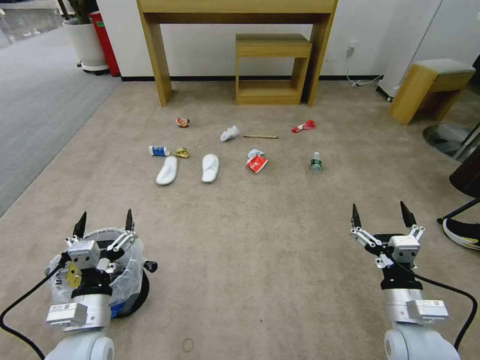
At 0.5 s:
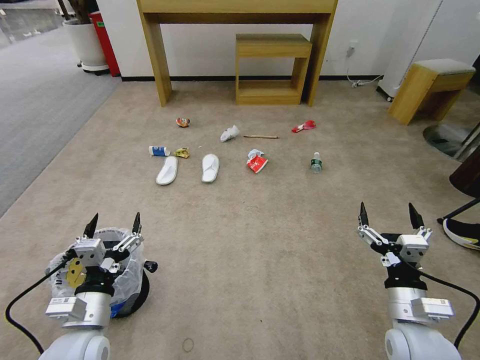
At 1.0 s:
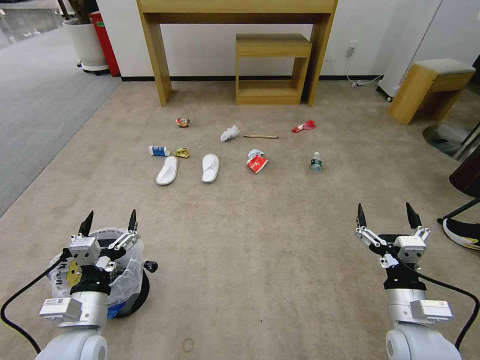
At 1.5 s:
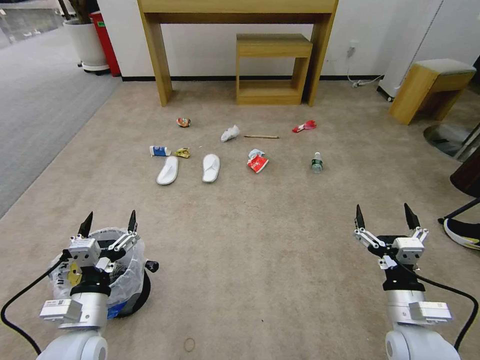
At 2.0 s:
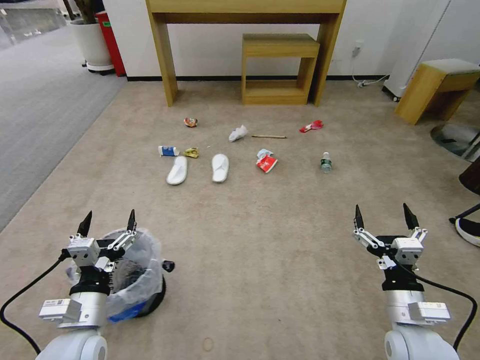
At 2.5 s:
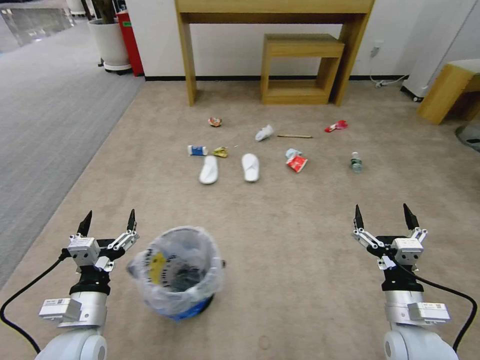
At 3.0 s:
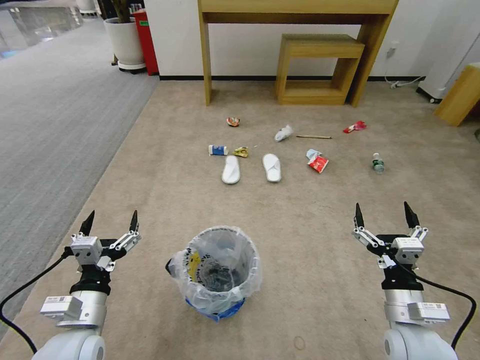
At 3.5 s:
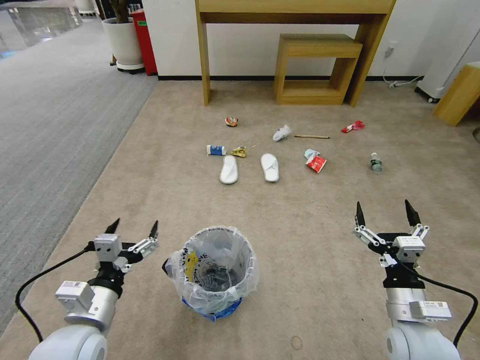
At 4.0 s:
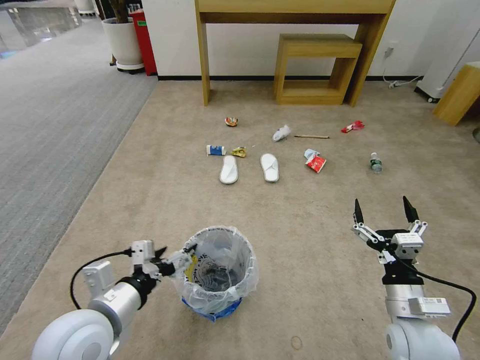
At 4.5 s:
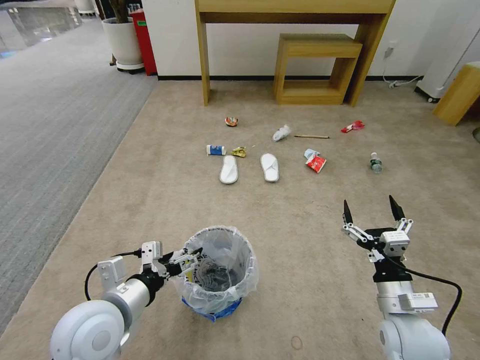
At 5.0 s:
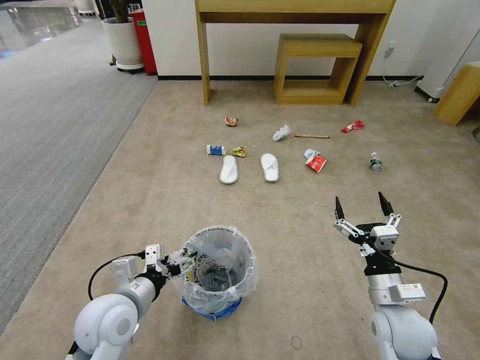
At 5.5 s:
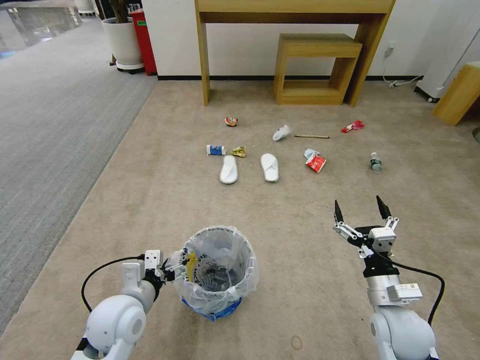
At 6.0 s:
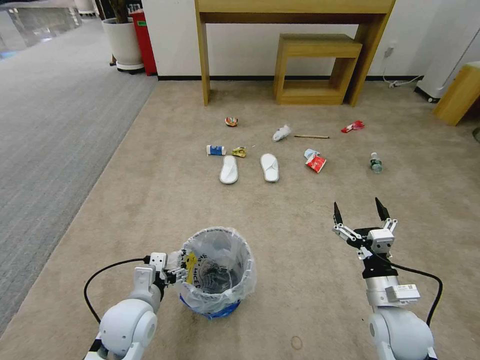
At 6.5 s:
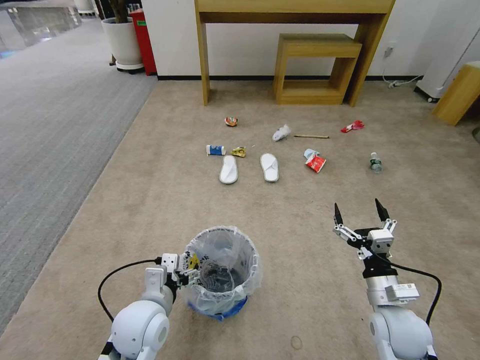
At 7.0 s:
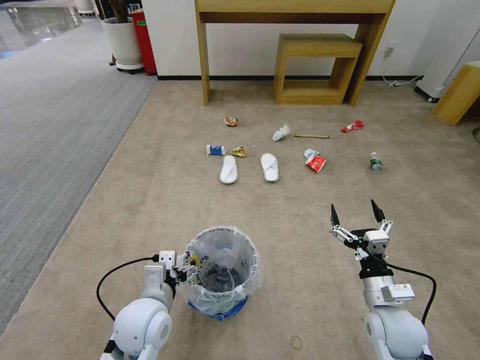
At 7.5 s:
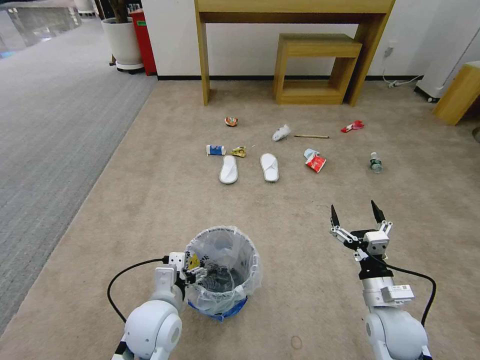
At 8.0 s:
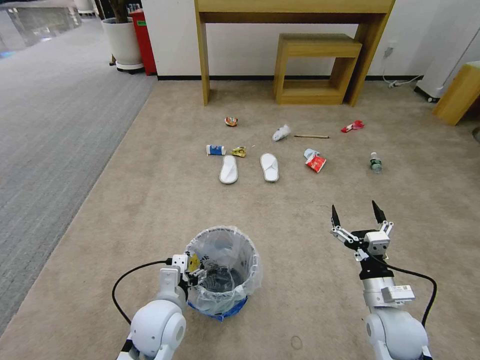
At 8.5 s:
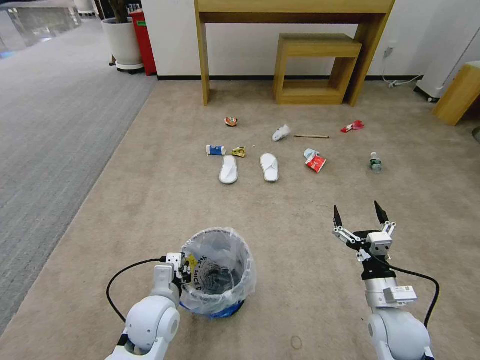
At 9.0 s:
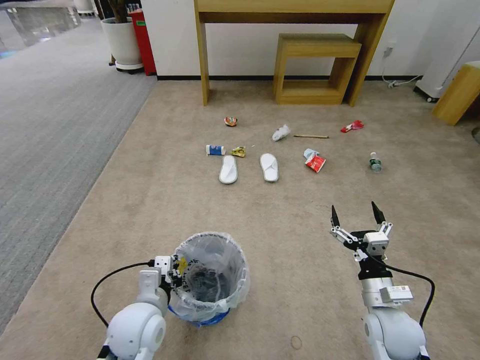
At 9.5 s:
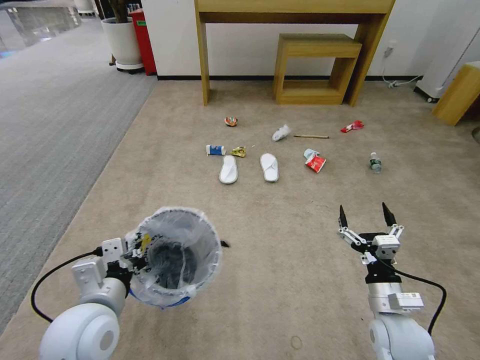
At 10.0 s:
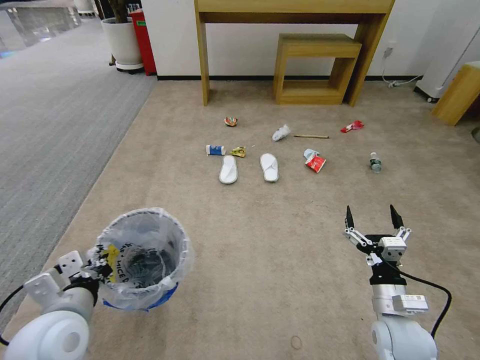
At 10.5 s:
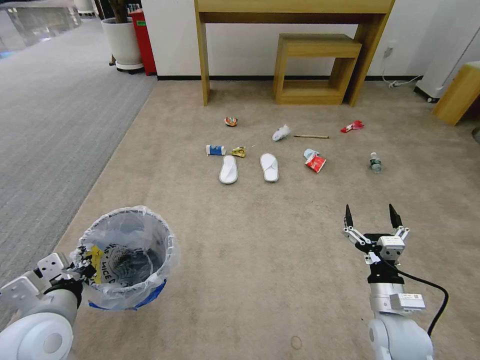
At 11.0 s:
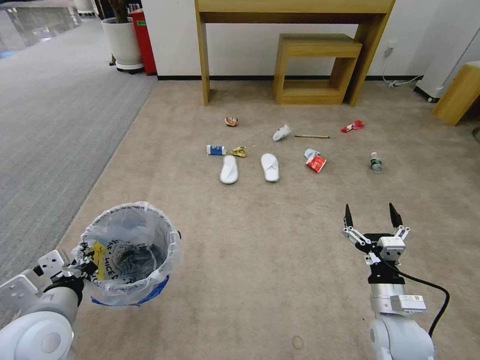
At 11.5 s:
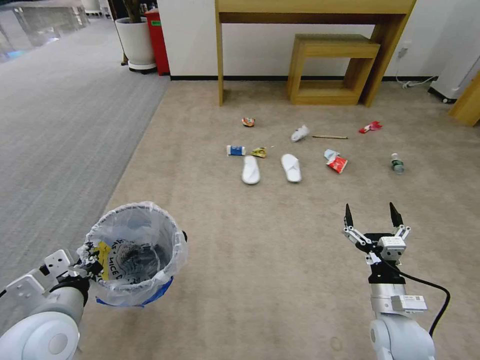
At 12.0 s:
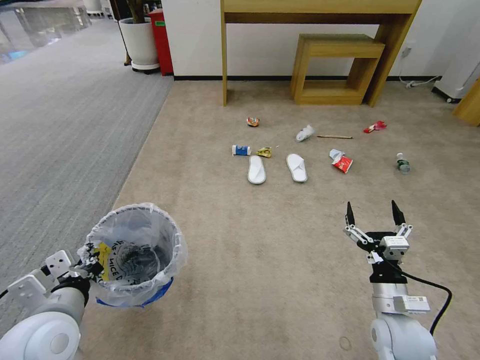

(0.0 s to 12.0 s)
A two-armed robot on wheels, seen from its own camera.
Task of the whole recording: Pick up the trash bin and place the garbage on the floor into it.
2.0 s - 4.0 s: The left gripper travels upward by some 5 cm.
4.0 s - 6.0 s: The left gripper travels downward and forward by approximately 10 cm.
6.0 s - 8.0 s: The left gripper is displaced to the right by roughly 5 cm.
8.0 s - 10.0 s: The left gripper heads to the left and upward, covering about 15 cm, and closes up.
10.0 s - 12.0 s: The grippers move only a little.

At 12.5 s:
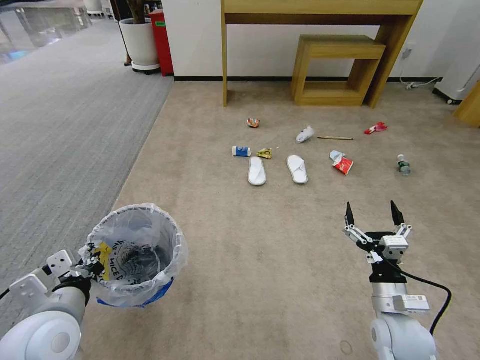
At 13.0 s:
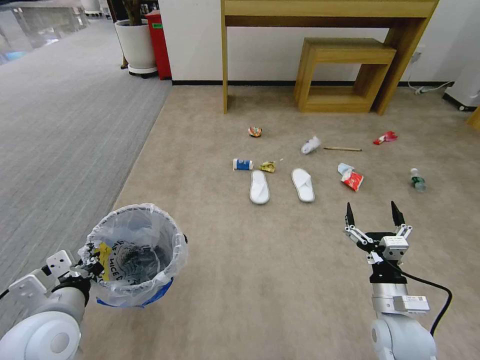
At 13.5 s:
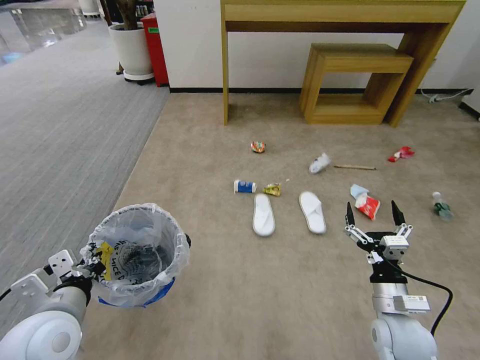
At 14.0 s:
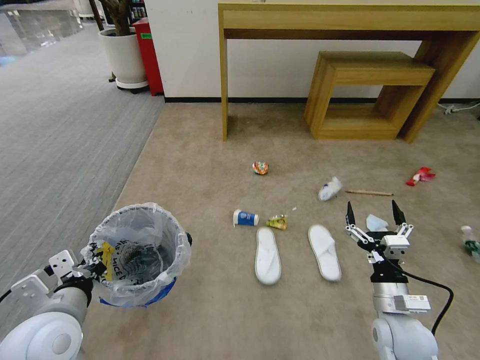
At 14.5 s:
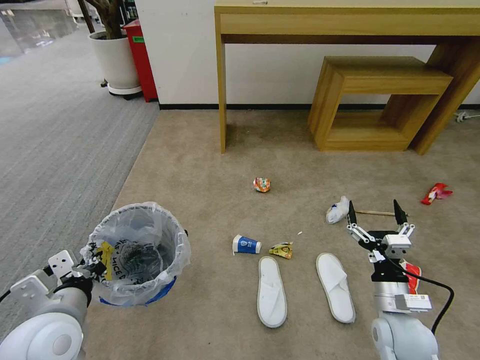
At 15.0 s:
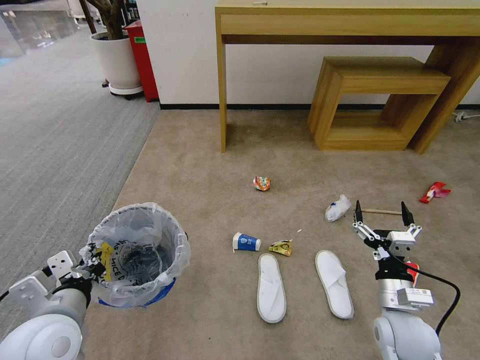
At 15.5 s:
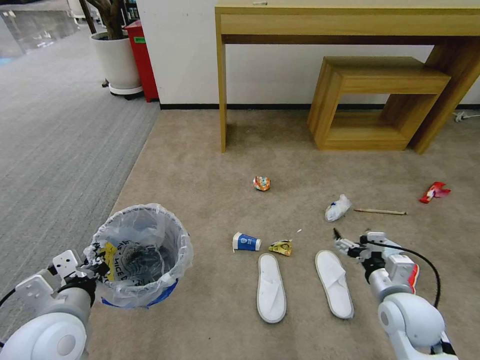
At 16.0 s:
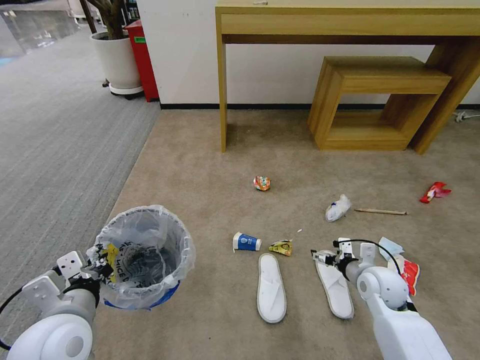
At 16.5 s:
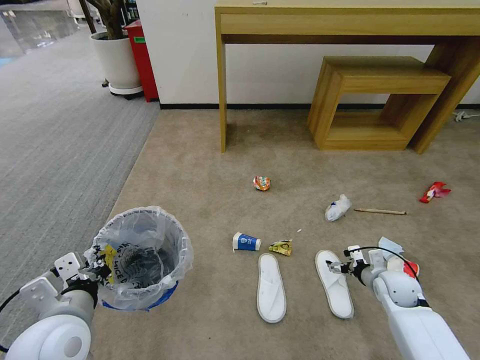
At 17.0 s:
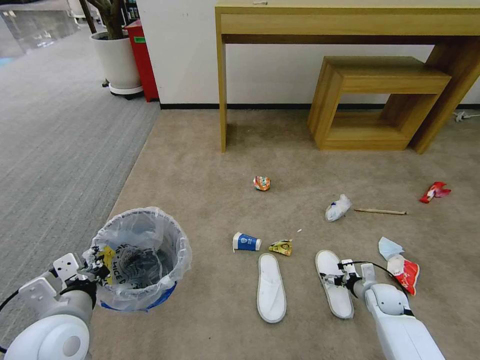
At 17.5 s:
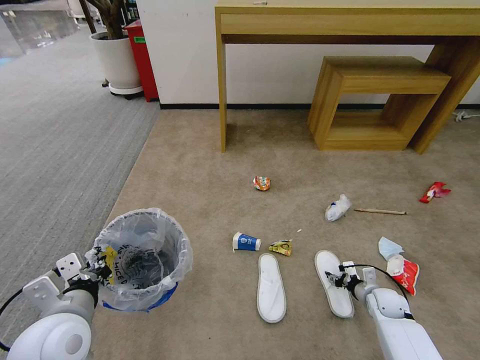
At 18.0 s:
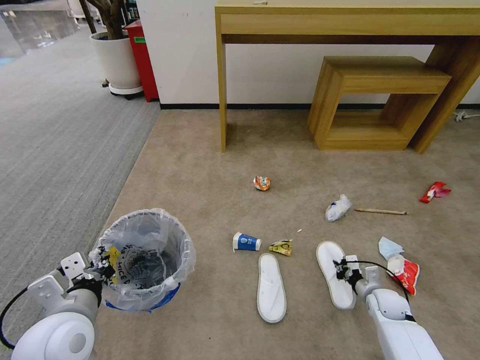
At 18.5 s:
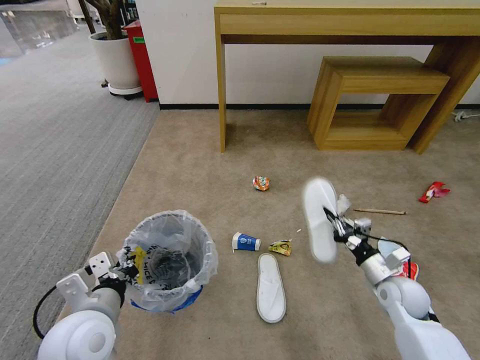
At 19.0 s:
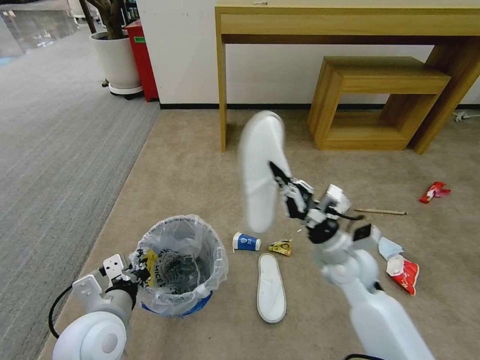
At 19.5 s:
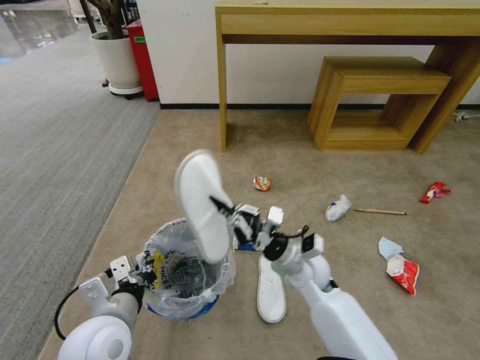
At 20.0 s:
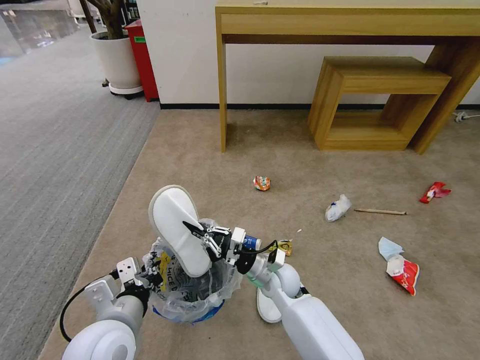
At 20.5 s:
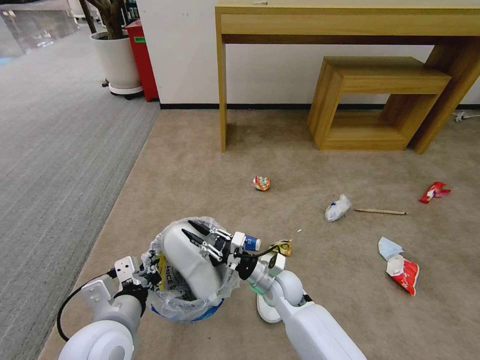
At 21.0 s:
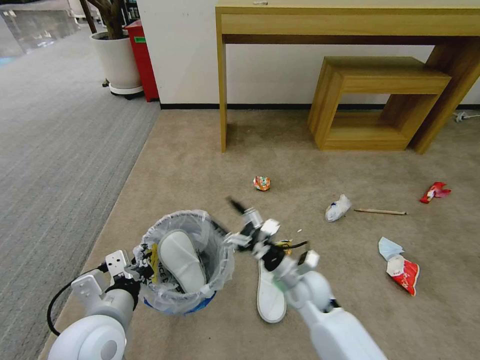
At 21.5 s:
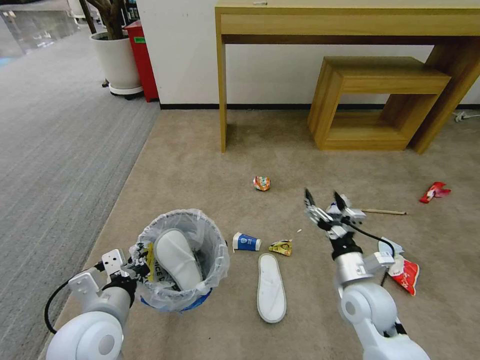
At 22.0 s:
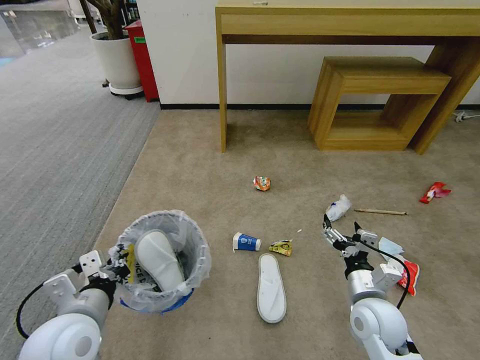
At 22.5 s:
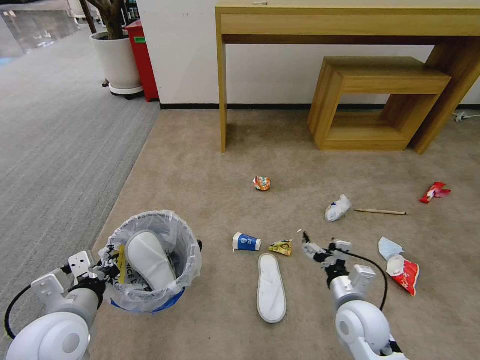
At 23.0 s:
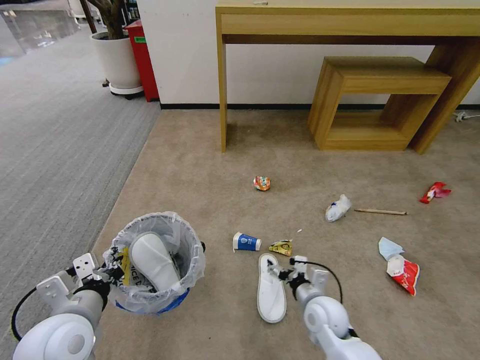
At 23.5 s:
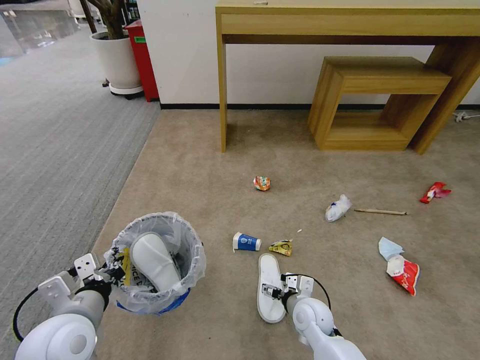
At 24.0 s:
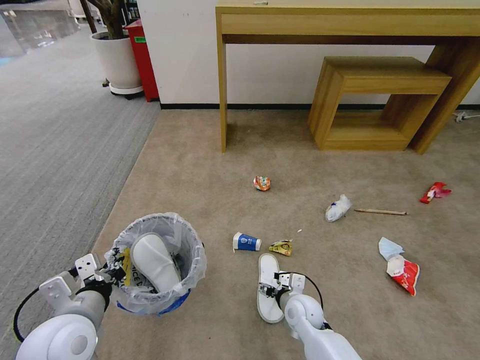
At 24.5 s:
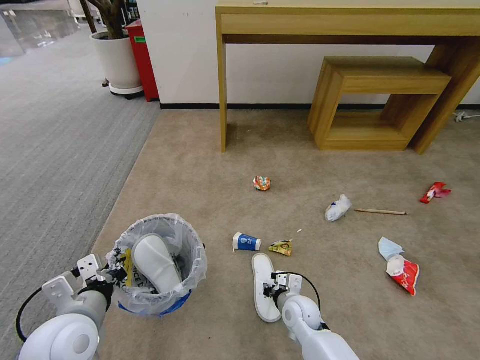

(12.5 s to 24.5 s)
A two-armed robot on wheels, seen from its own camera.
Task of the whole recording: Pick up the trash bin and place the garbage on the floor into it.
14.5 s - 16.5 s: The right gripper travels forward, to the right and downward by some 15 cm.
16.5 s - 18.5 s: The right gripper reaches about 10 cm downward, then returns, and closes.
18.5 s - 20.5 s: The right gripper moves to the left, approximately 30 cm.
20.5 s - 22.5 s: The left gripper is displaced to the left by approximately 10 cm. Meanwhile the right gripper travels to the right and backward by roughly 15 cm, and opens.
22.5 s - 24.5 s: The right gripper goes some 15 cm downward, to the left and forward, and closes its fingers.

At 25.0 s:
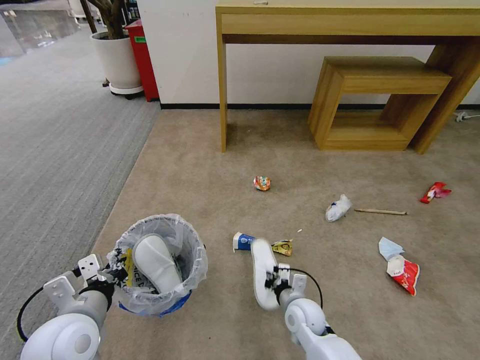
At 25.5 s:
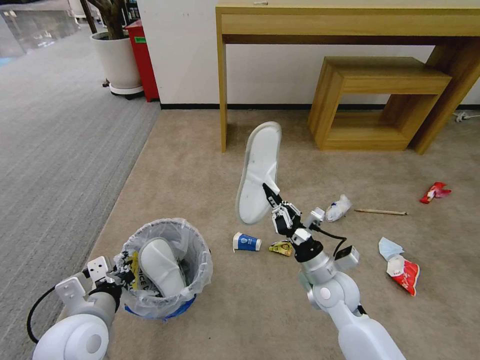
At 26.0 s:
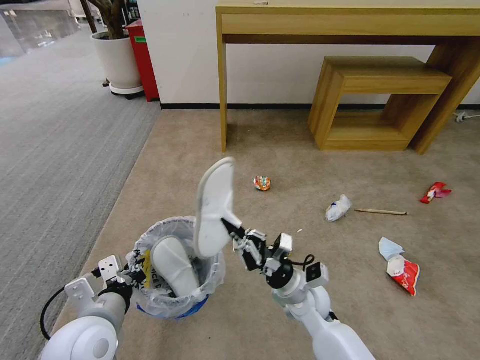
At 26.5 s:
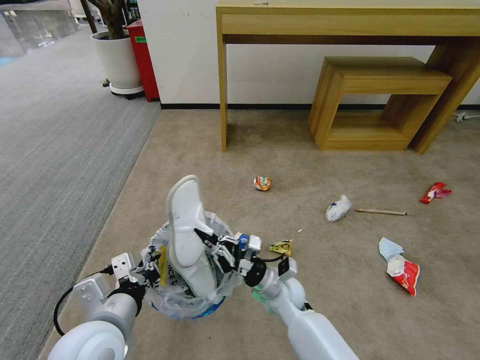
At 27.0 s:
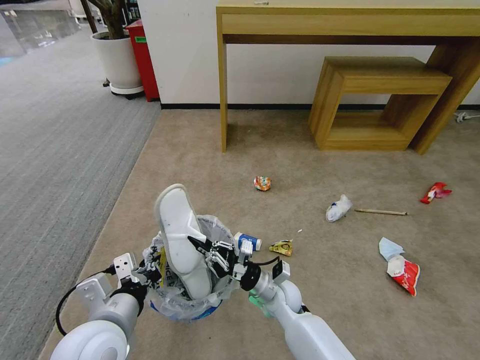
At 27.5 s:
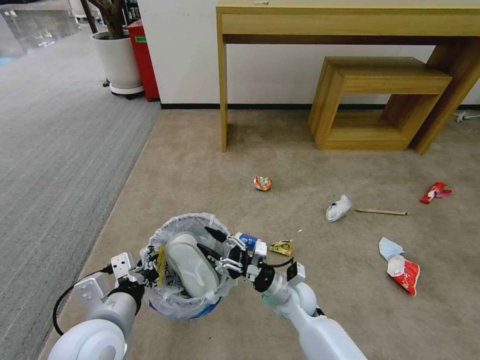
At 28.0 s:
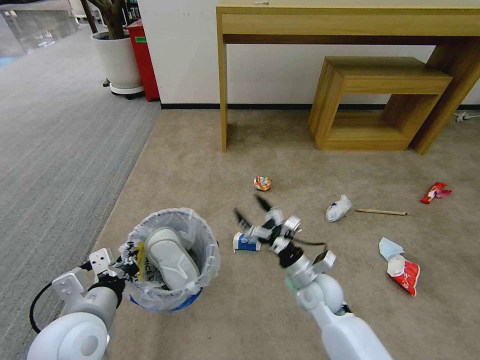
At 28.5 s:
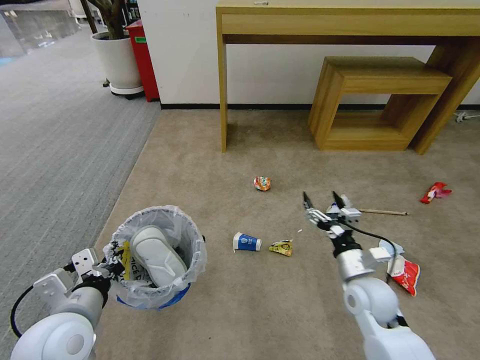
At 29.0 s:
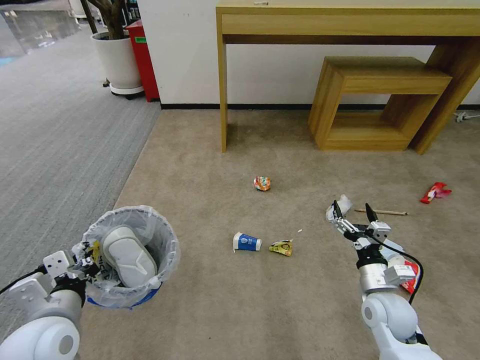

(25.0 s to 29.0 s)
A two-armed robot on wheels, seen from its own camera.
Task of the whole recording: Pick up the trash bin and place the garbage on the floor into it.
25.0 s - 27.0 s: The right gripper is displaced to the left by approximately 5 cm, and moves roughly 10 cm upward and comes back; the left gripper moves to the right, roughly 5 cm.
27.0 s - 29.0 s: The left gripper goes about 10 cm to the left. The right gripper shifts about 20 cm to the right, and opens.
